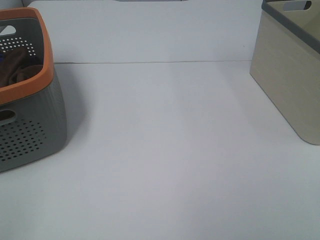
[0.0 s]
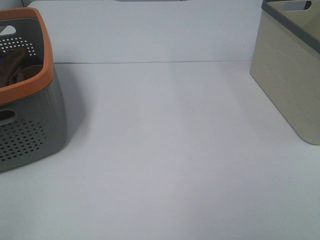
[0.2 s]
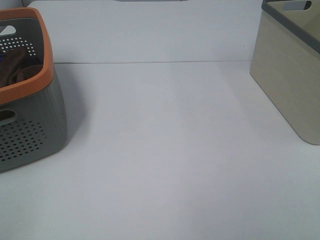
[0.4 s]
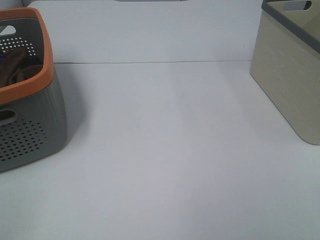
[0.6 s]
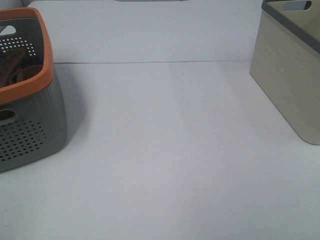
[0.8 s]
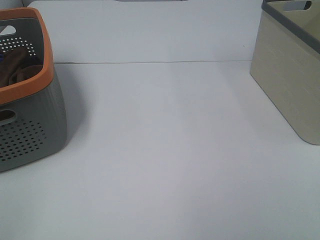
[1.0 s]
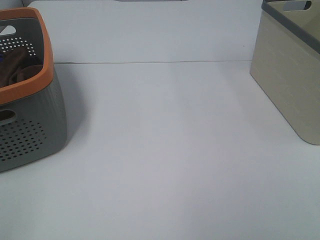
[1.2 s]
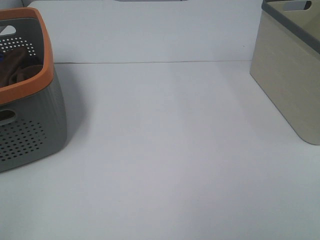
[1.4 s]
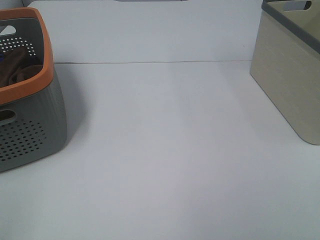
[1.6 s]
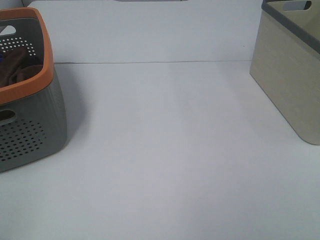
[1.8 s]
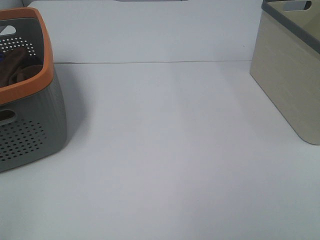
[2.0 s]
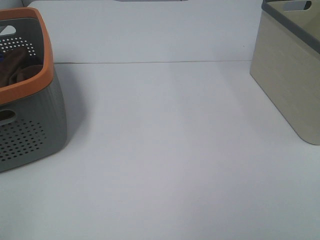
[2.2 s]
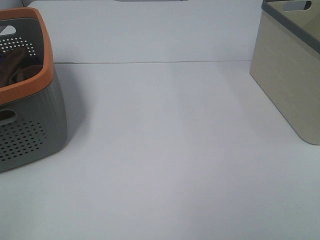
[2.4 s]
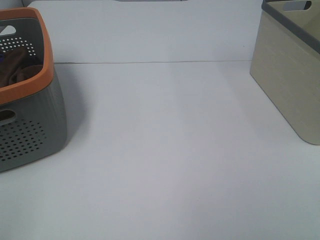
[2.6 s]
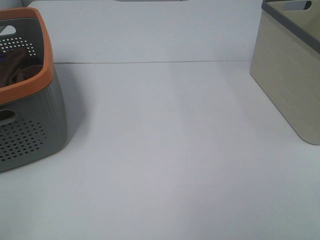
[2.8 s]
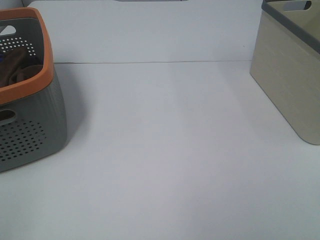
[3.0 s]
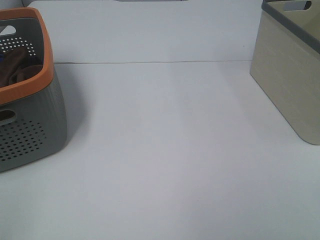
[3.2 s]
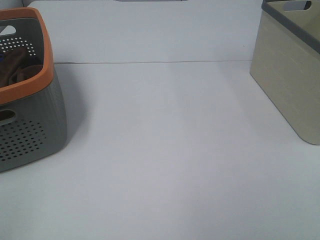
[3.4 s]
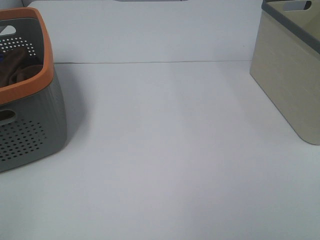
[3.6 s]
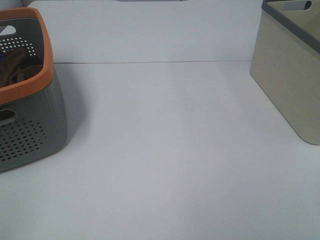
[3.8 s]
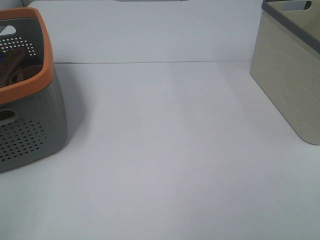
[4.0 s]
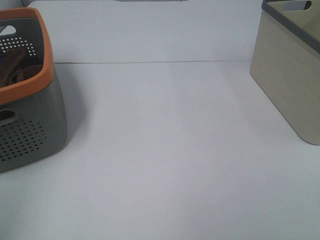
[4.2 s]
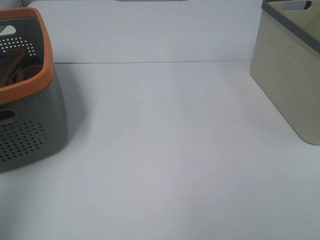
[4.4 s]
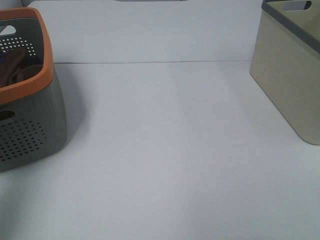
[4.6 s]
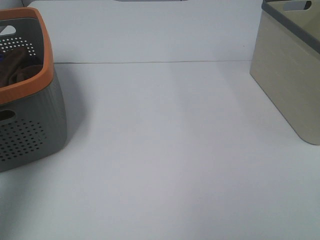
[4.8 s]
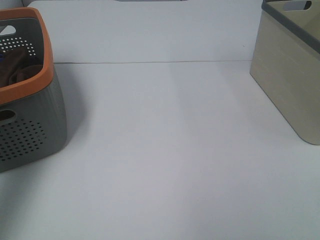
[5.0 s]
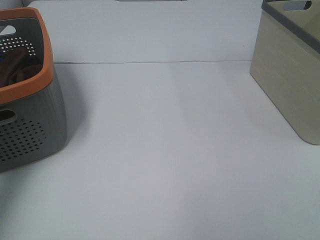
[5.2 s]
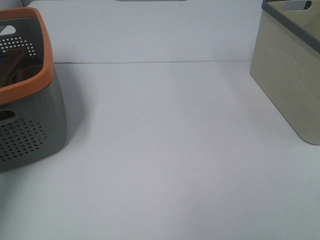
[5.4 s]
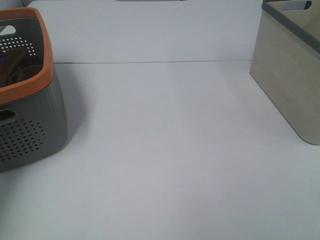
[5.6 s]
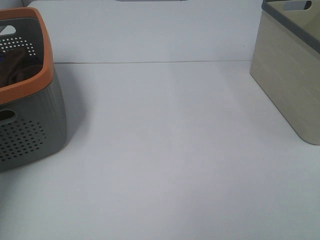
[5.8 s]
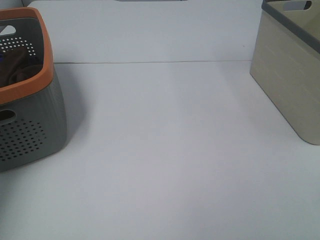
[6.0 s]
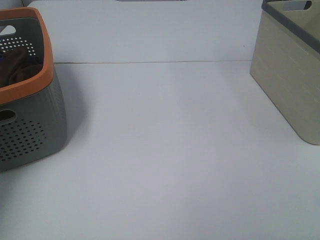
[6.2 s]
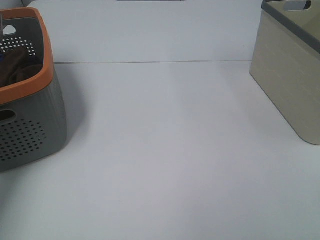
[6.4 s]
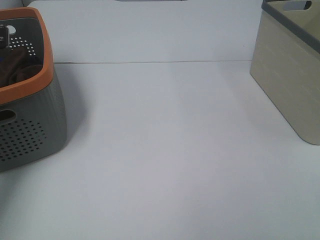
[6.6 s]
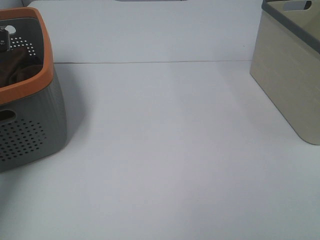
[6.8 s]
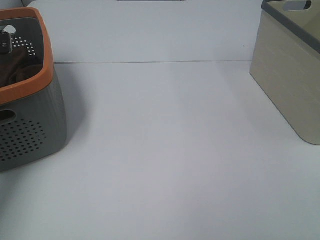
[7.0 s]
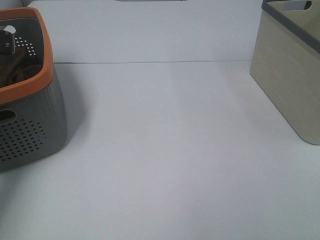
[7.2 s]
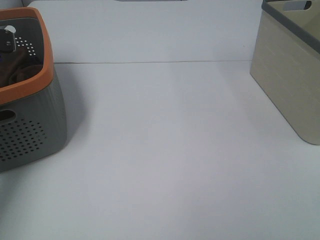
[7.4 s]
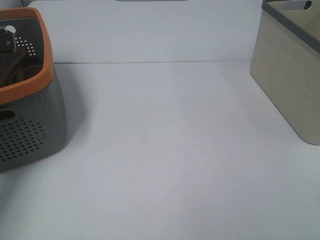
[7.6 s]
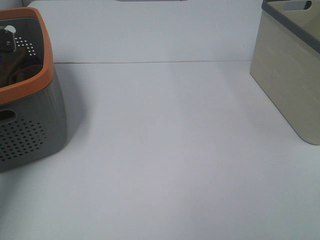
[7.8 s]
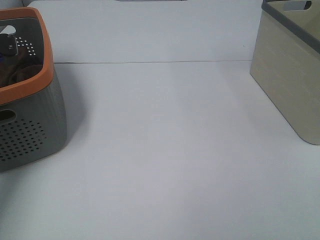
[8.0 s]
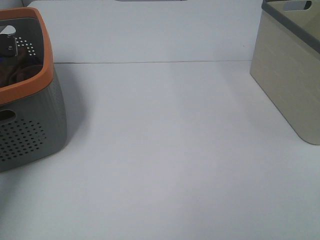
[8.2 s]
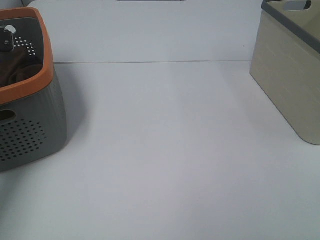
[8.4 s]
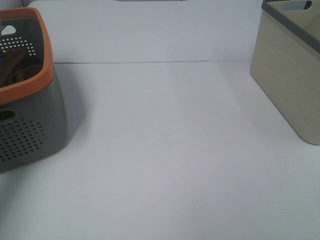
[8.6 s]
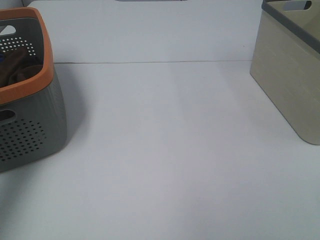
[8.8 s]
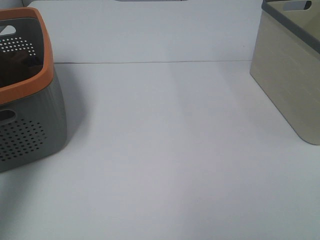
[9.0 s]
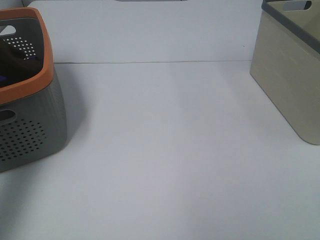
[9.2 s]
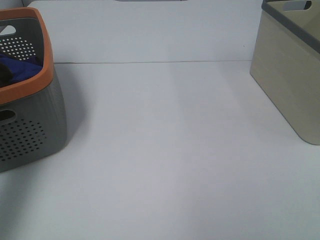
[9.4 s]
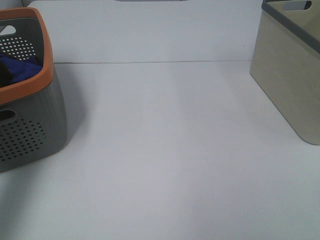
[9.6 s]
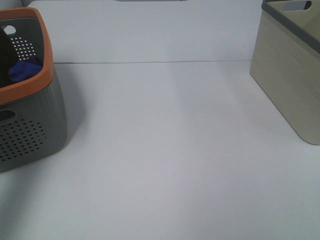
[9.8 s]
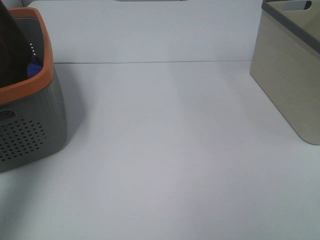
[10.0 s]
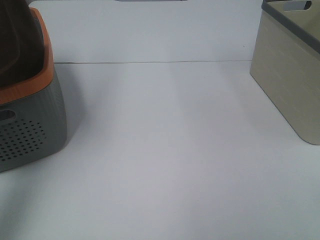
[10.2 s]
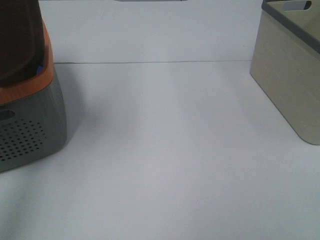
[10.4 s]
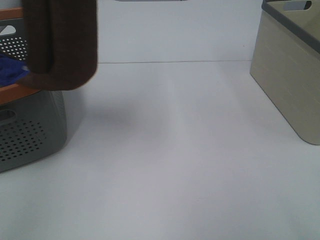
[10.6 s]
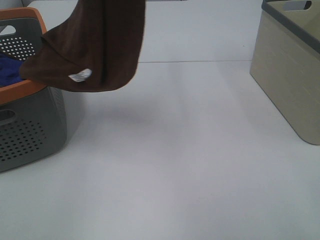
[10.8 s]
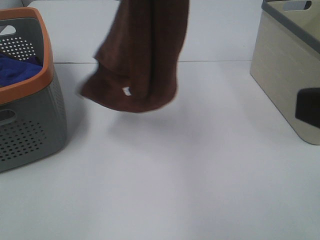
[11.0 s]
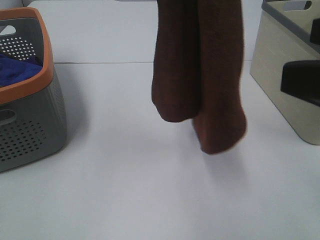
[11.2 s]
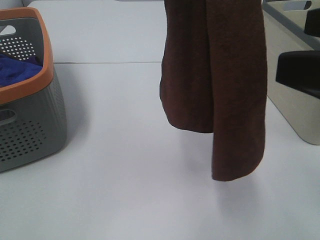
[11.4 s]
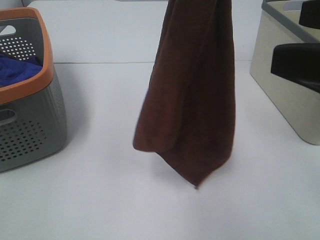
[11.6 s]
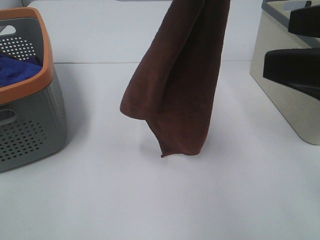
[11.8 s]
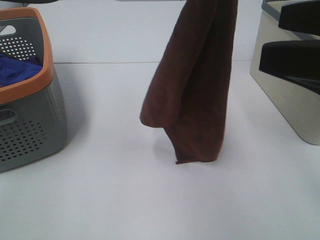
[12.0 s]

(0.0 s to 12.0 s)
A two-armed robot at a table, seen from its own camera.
Task of the whole recording: Remove the towel and place it.
0.0 s - 3.0 s: The two grippers keep their place.
3.0 s - 4.4 s: The left gripper goes roughly 15 cm upward and forward.
9.0 s - 10.4 s: The left gripper shifts approximately 15 cm upward and to the right.
10.4 s - 12.0 s: The right gripper is displaced forward by about 15 cm. The left gripper heads to the right and downward, covering some 20 cm.

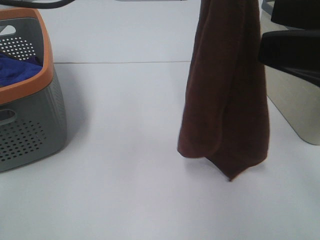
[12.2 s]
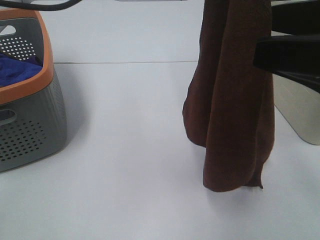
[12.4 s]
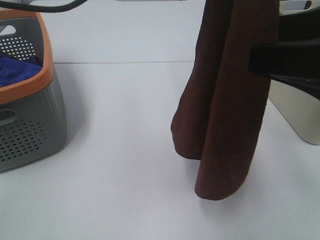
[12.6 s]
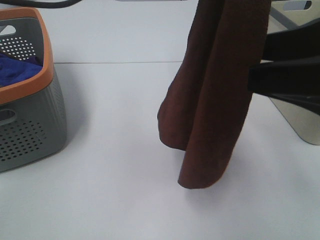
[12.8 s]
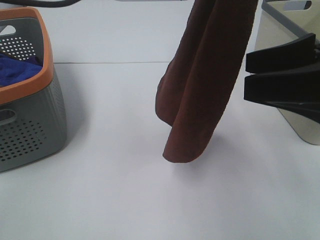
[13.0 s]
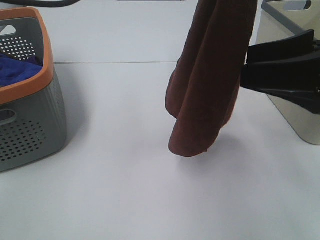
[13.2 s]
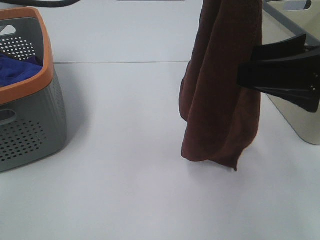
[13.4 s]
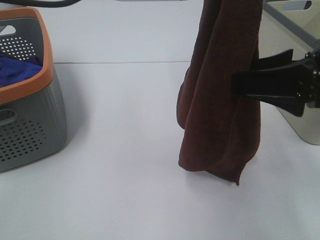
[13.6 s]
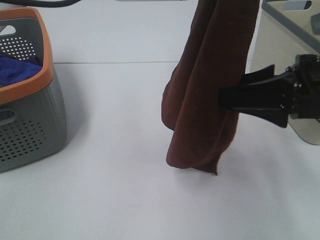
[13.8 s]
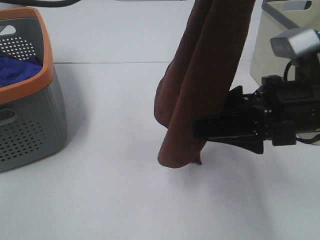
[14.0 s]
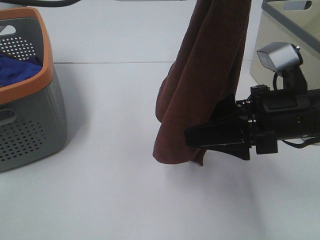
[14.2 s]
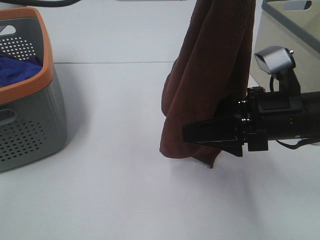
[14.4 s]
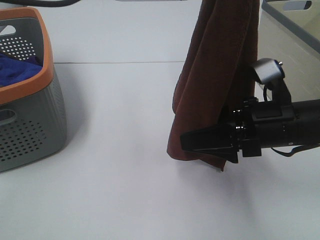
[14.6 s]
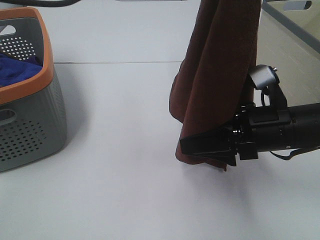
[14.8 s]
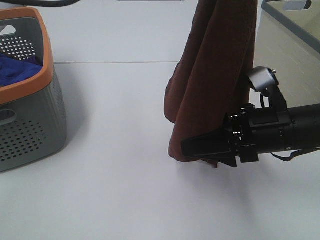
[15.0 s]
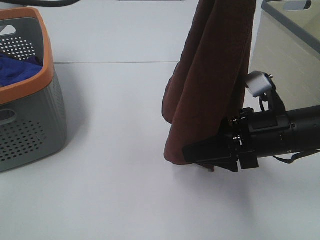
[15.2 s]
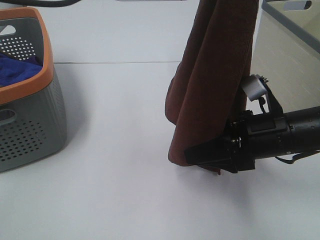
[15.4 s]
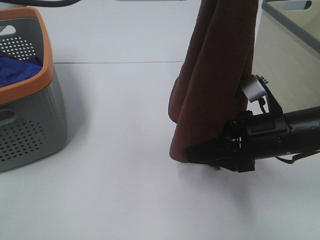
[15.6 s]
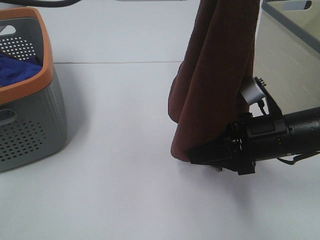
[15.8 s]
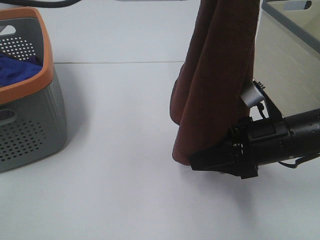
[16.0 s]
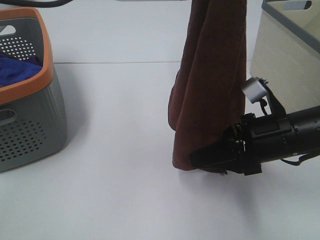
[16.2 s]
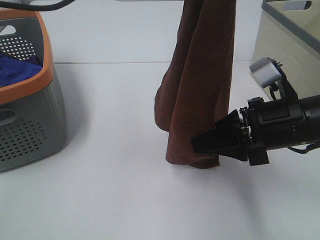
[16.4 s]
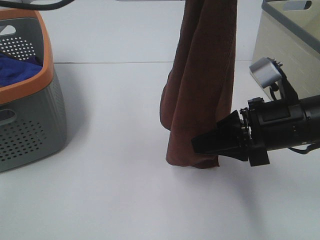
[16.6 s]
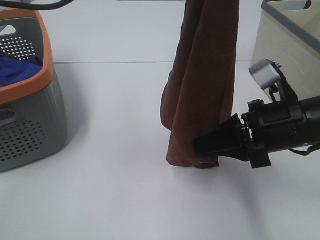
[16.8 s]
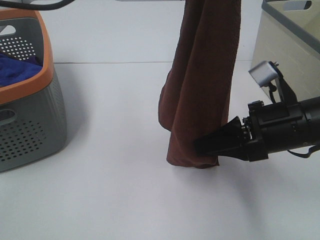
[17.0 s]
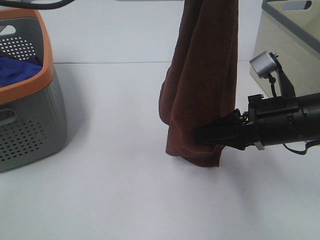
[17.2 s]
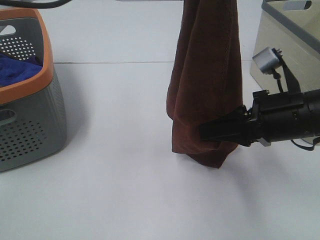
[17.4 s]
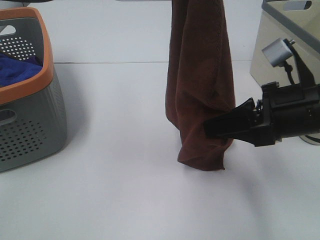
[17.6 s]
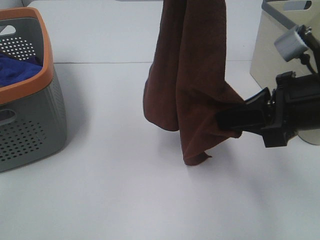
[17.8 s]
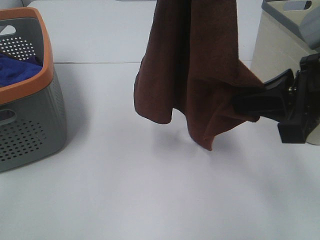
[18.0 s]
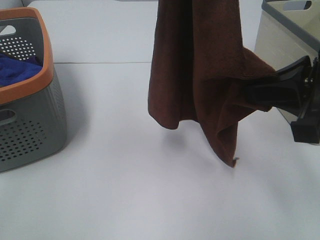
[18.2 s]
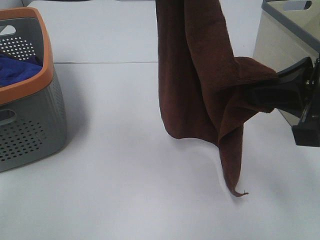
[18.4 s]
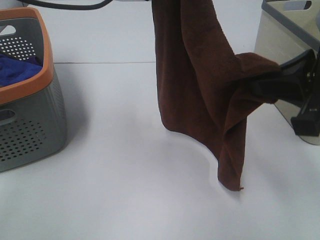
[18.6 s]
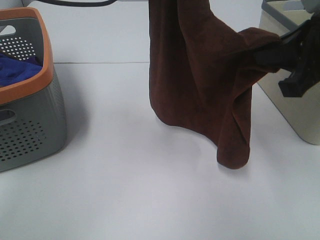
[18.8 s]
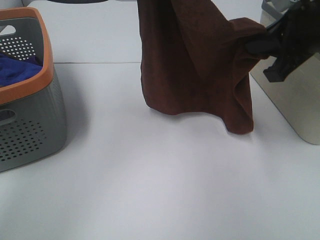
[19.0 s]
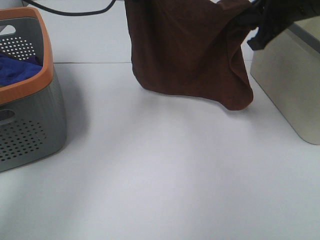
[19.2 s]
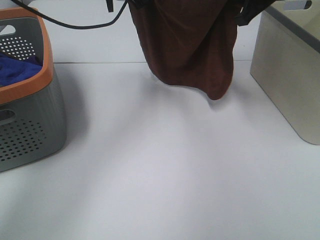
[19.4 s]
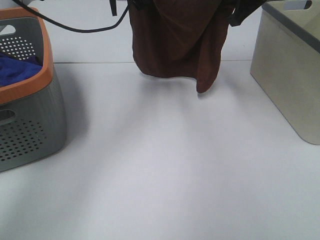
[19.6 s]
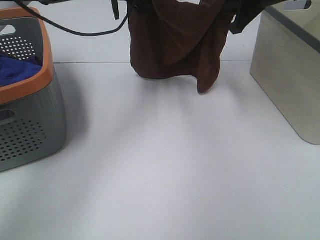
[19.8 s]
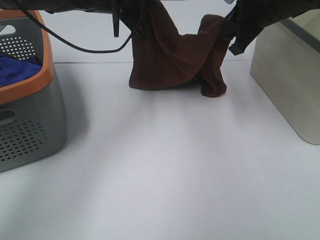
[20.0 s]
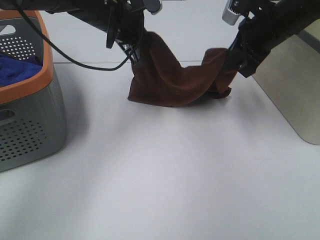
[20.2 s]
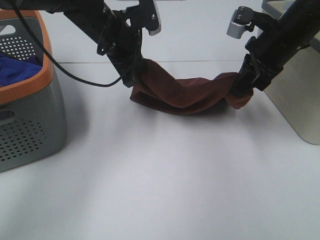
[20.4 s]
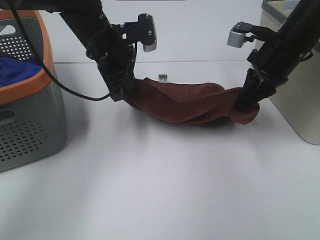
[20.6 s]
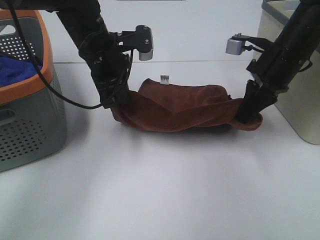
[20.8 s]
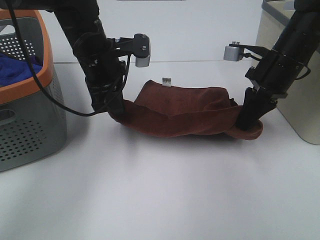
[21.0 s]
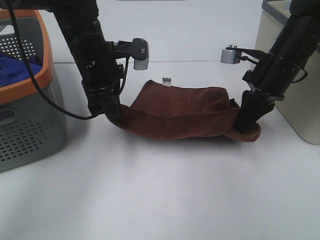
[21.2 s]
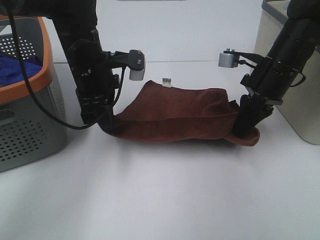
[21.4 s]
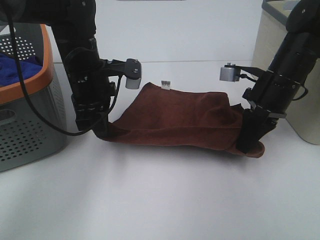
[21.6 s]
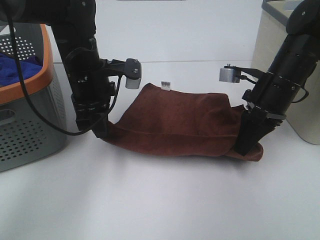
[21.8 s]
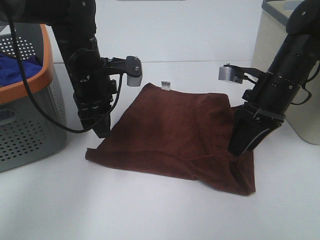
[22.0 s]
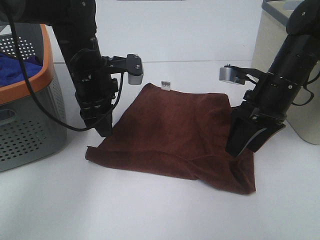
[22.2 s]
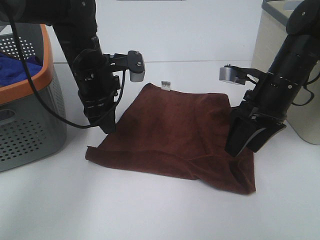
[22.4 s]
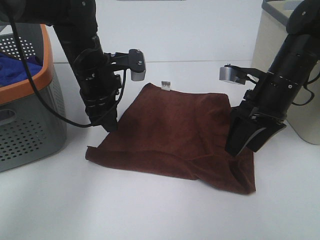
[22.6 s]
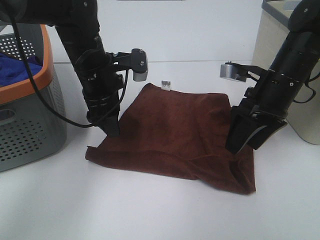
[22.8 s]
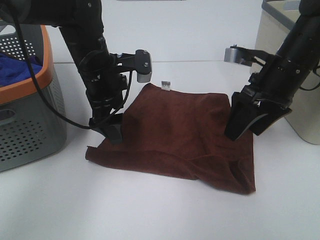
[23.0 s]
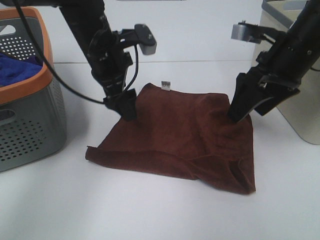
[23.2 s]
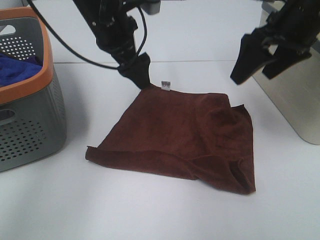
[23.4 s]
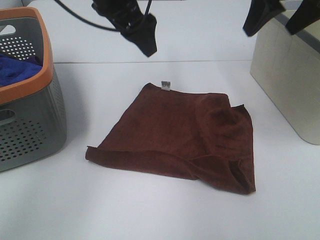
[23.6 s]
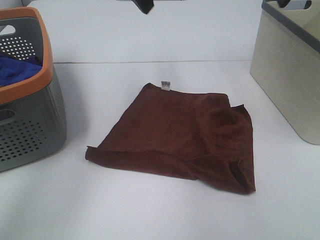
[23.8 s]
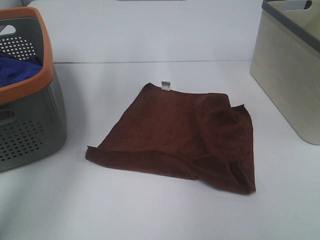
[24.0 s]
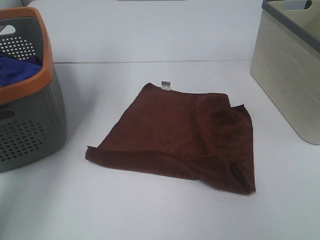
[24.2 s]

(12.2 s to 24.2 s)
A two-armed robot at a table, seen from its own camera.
Task of the whole recording: Remove the towel and place it.
Step, 12.2 s - 15.4 s: Right hand: grab a corner of the brown towel and straighten it.
Step, 15.6 s - 17.4 s: Left hand: spread the brown towel flat on the table.
Step, 15.6 s - 17.4 s: Right hand: spread the brown towel flat on the table.
12.2 s - 13.8 s: The right gripper shifts approximately 10 cm downward and forward.
13.8 s - 15.2 s: The right gripper shifts about 10 cm downward.
15.2 s - 16.6 s: The right gripper closes its fingers.
16.6 s - 18.2 s: The right gripper is displaced upward by some 10 cm.
18.2 s - 19.8 s: The left gripper heads forward and downward, covering about 20 cm. Meanwhile the right gripper moves forward, some 25 cm.
19.8 s - 21.2 s: The two grippers go roughly 10 cm downward and backward.
21.2 s - 22.6 s: The right gripper opens up; the left gripper opens up.
22.6 s - 24.2 s: The right gripper is displaced upward and to the right by about 30 cm. The left gripper shifts about 25 cm upward and to the left, and opens up.
